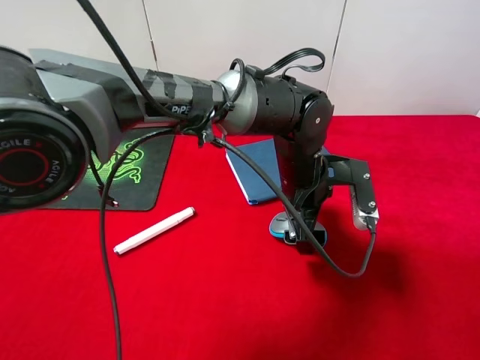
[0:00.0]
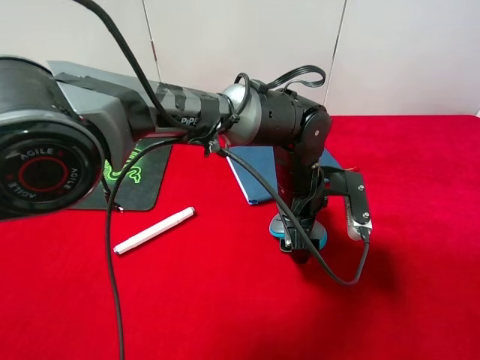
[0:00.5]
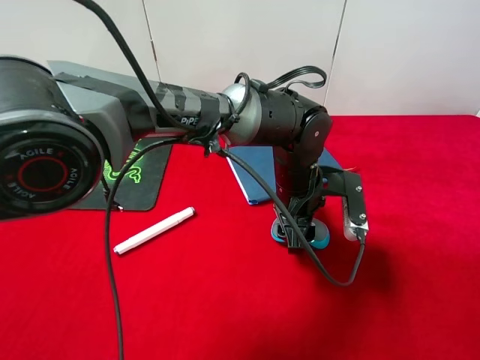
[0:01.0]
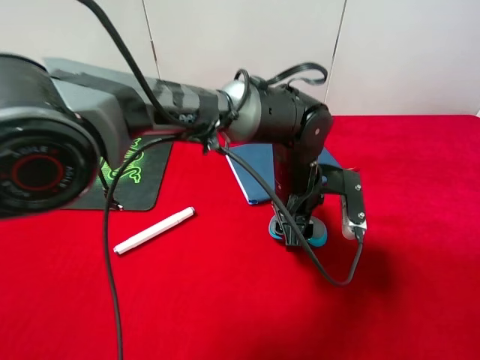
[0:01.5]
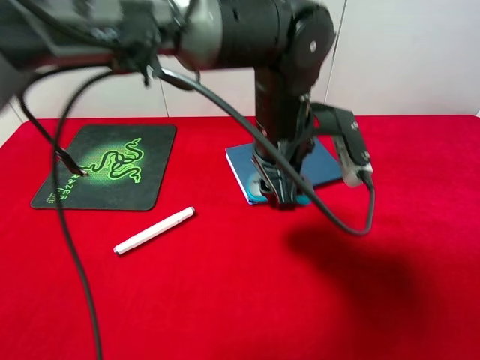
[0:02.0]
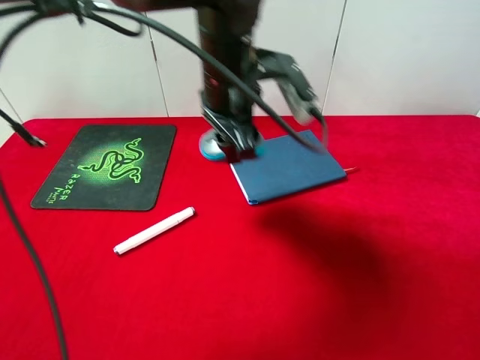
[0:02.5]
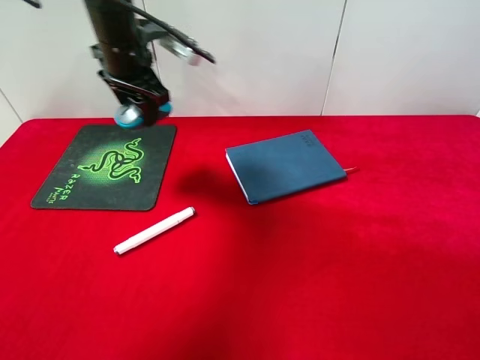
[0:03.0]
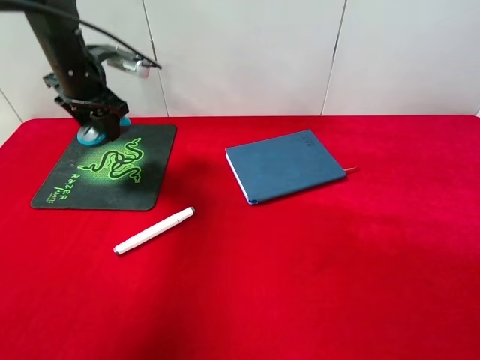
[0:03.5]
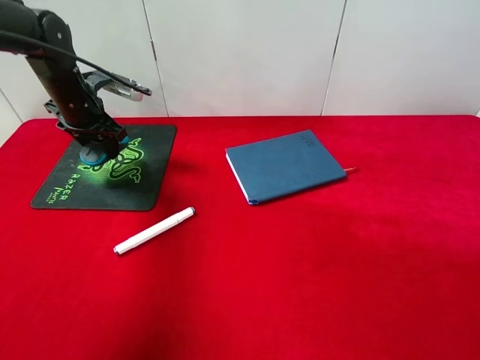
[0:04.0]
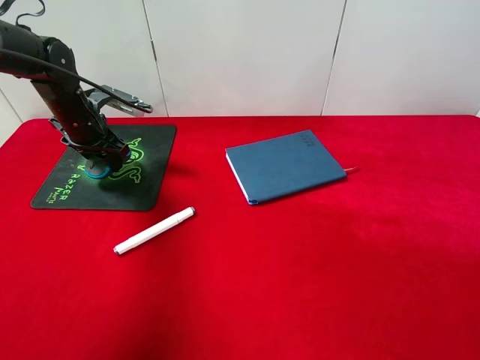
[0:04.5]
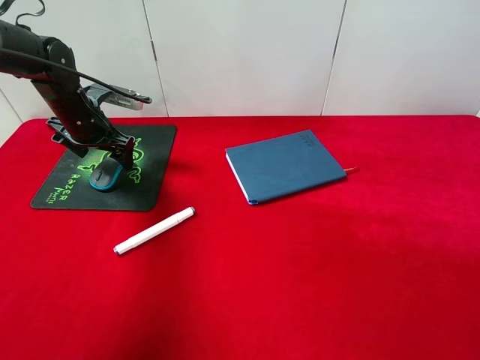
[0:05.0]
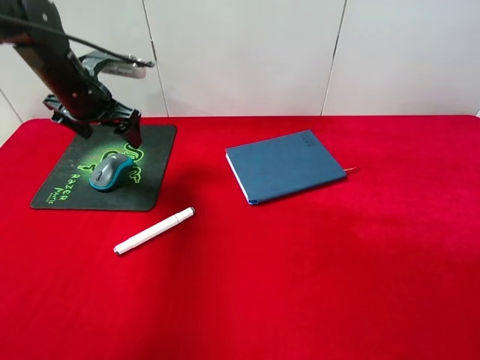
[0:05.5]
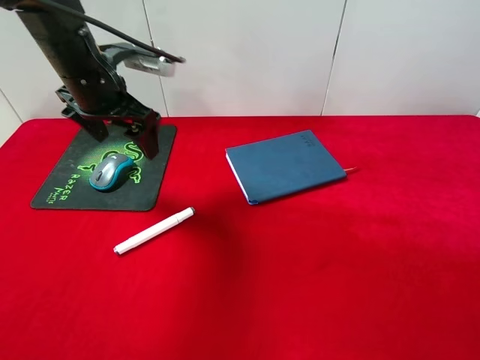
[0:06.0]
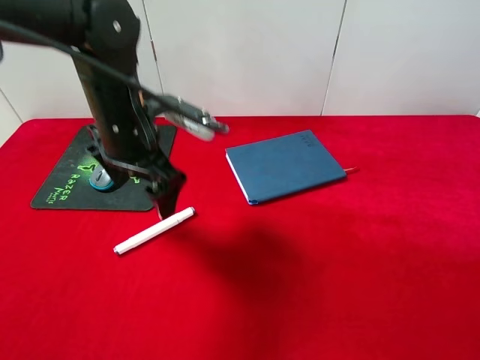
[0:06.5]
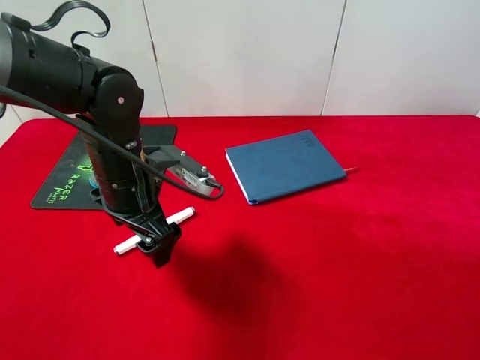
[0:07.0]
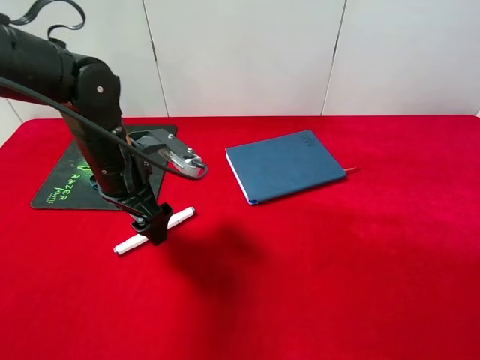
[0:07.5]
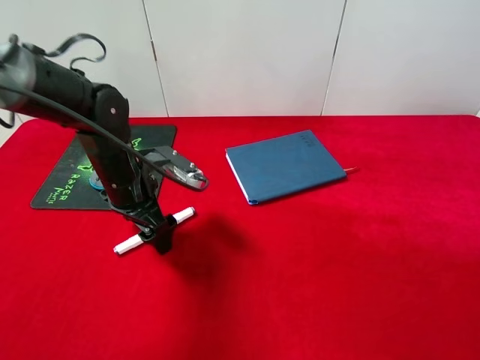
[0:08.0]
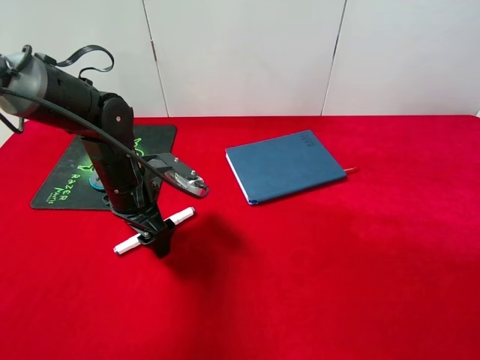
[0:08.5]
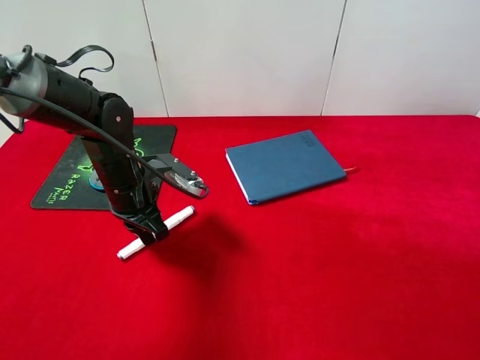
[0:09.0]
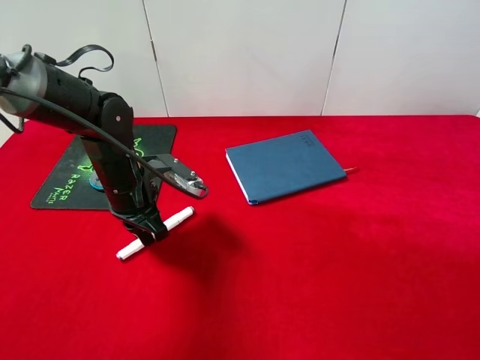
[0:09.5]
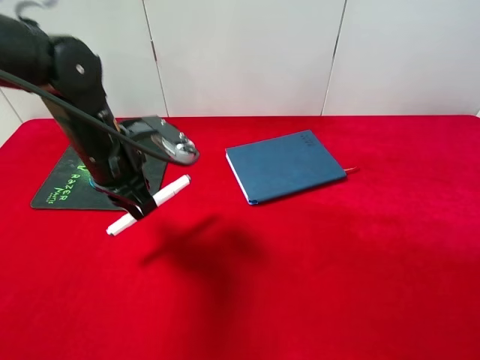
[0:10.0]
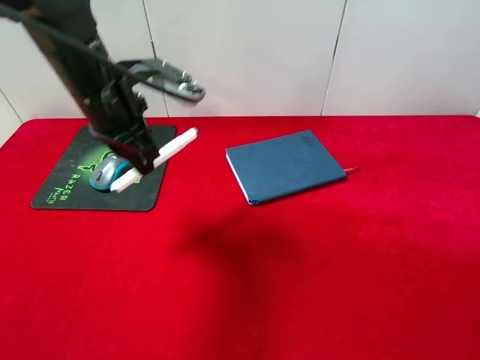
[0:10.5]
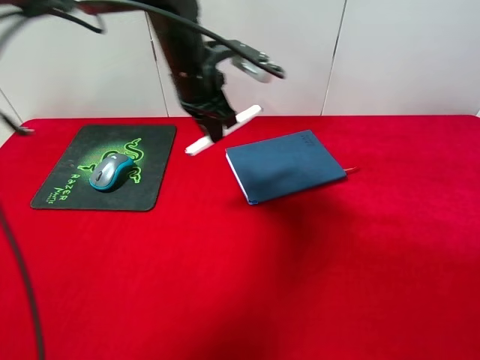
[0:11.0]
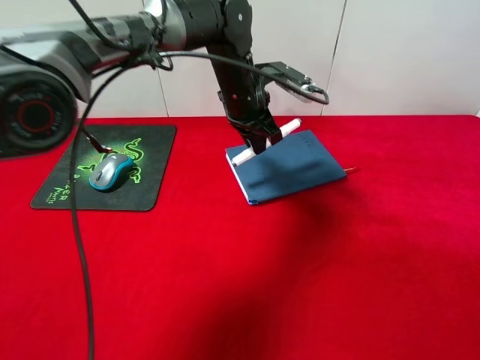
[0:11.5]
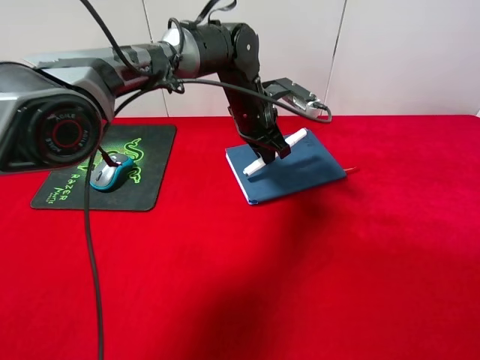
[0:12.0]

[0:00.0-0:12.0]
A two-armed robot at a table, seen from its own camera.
Step, 0:02.0 to 0:05.0: Place the mouse on the mouse pad with left gripper.
Step, 0:05.5 to 0:10.0: Pick up the marker pen with left gripper.
0:00.0 to 0:02.0: The left gripper goes some 10 cm upward, and closes.
0:02.0 to 0:04.0: The left gripper is displaced to the left and forward by some 35 cm.
0:04.0 to 0:06.0: The left gripper heads to the right, backward and upward, covering some 15 cm, and opens its fingers.
0:06.0 to 0:08.0: The left gripper moves downward, some 15 cm.
0:08.0 to 0:10.0: The left gripper heads upward, covering about 5 cm, and closes.
0:10.0 to 0:12.0: The left gripper goes some 25 cm to the right and forward.

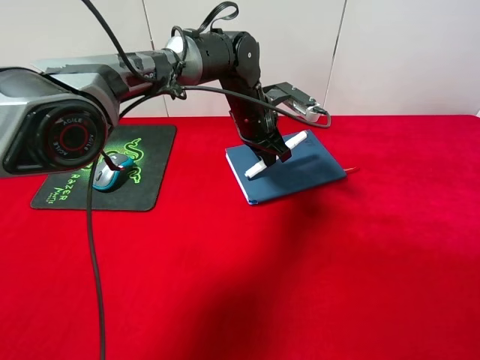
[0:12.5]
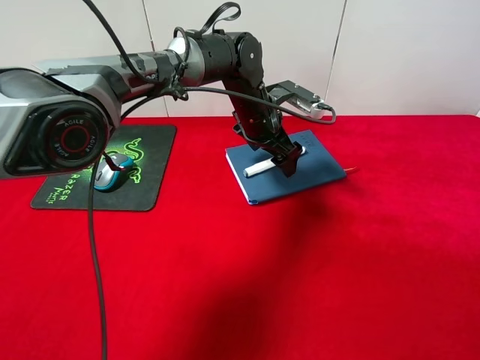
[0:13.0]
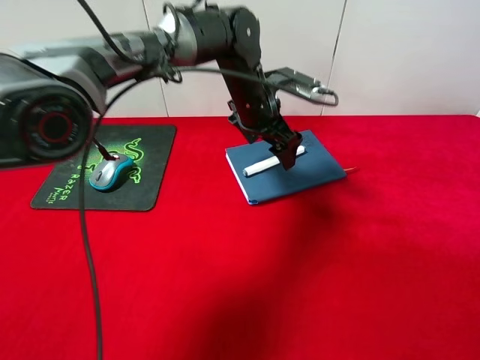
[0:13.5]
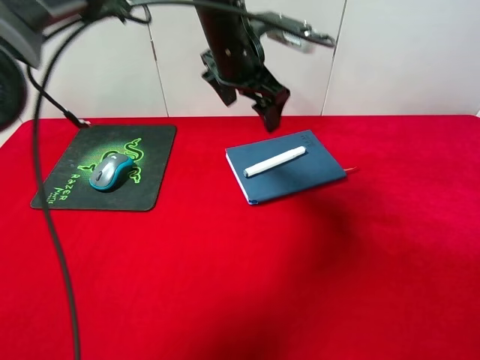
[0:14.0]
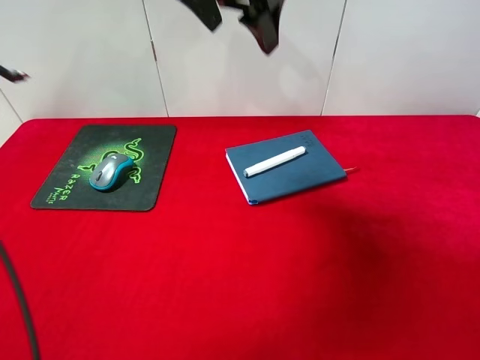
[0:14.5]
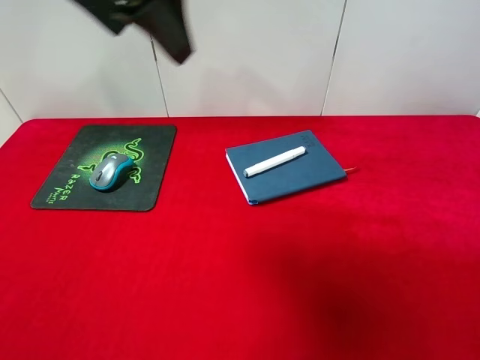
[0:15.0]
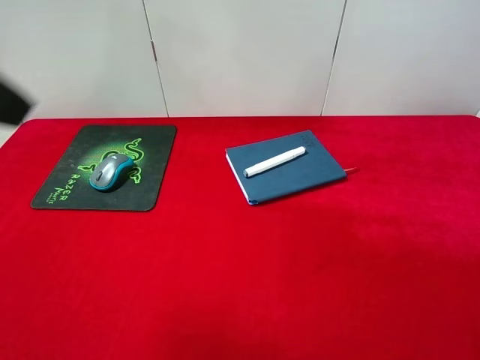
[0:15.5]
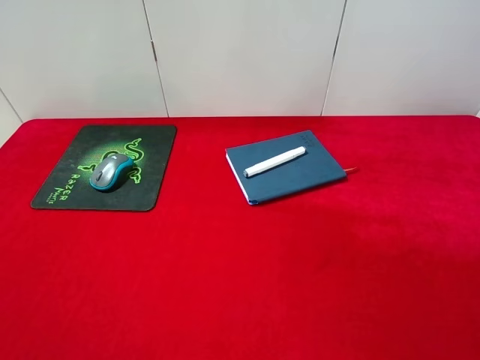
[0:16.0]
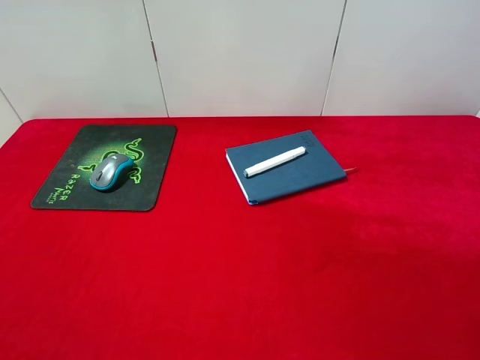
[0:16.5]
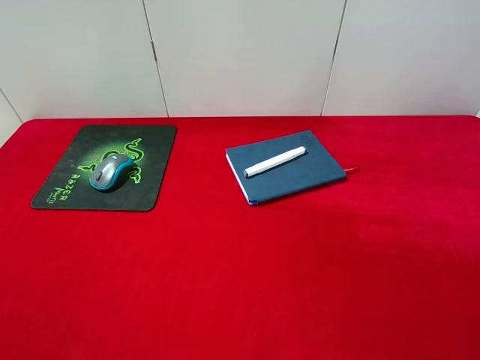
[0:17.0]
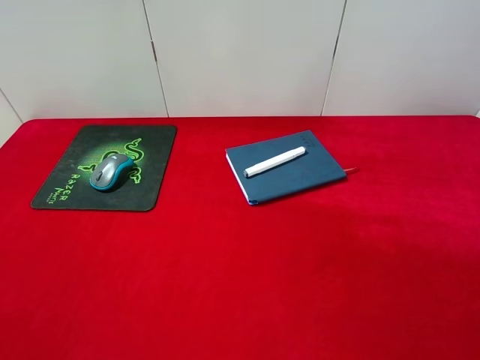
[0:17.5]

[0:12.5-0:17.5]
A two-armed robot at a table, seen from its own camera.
0:12.5 to 0:15.0: The left gripper shifts about 35 cm upward, backward and to the left, and opens.
0:15.0 to 0:17.5: The left gripper is displaced backward, to the left and downward by roughly 35 cm.
